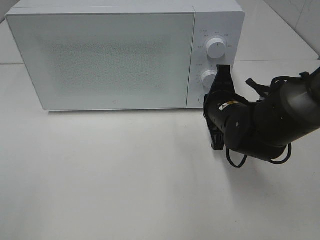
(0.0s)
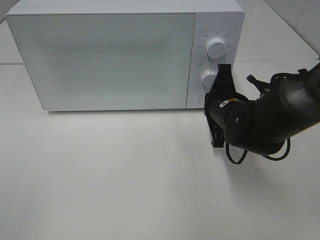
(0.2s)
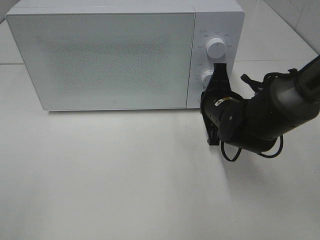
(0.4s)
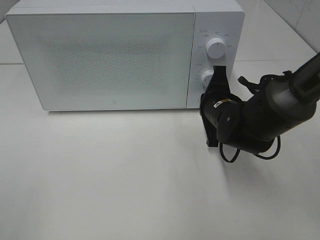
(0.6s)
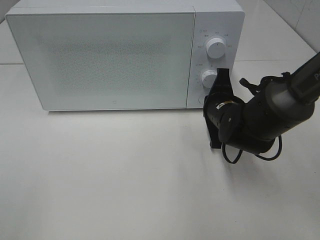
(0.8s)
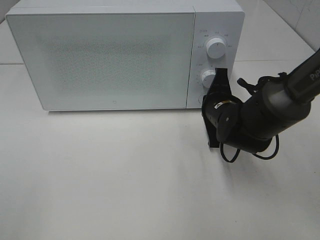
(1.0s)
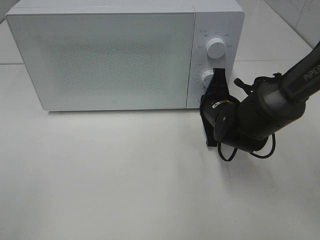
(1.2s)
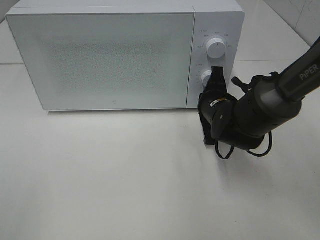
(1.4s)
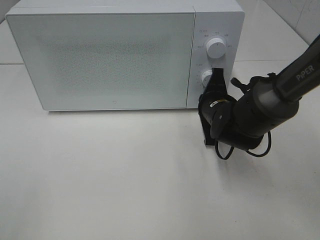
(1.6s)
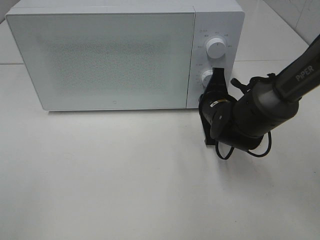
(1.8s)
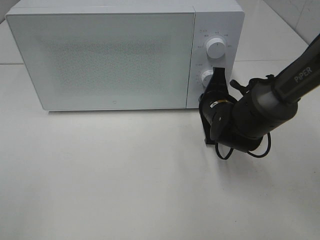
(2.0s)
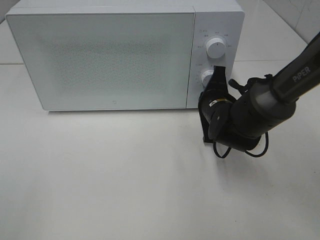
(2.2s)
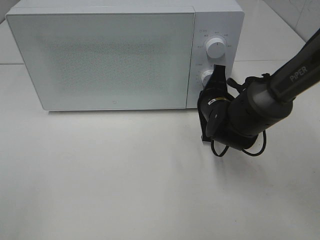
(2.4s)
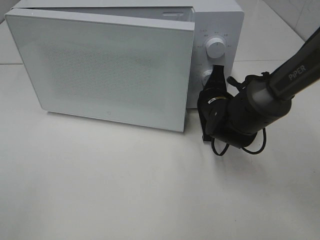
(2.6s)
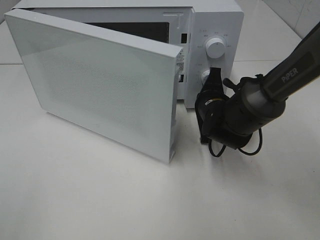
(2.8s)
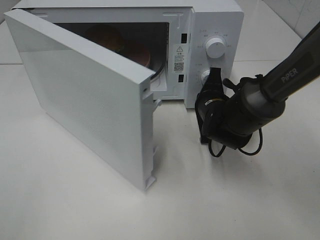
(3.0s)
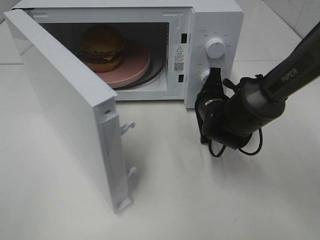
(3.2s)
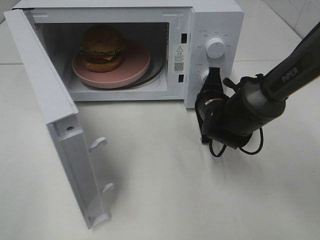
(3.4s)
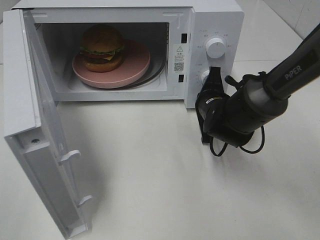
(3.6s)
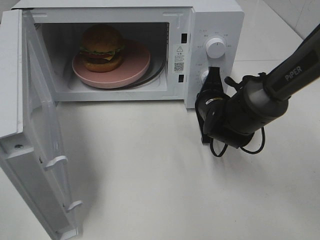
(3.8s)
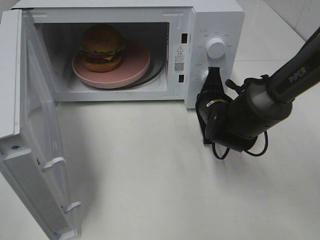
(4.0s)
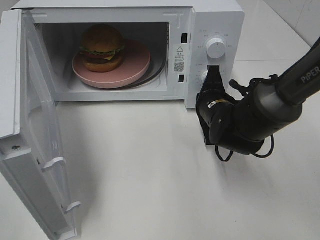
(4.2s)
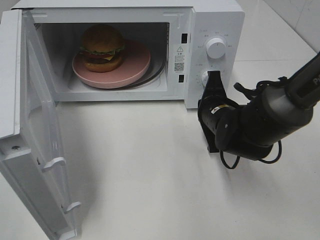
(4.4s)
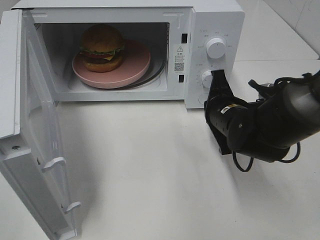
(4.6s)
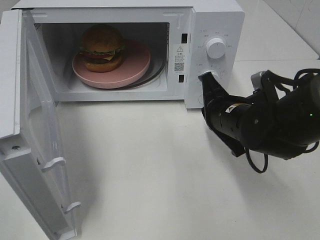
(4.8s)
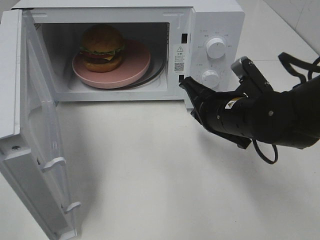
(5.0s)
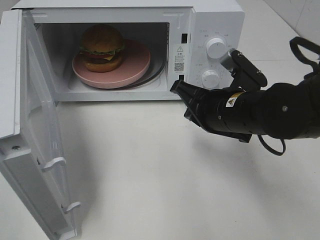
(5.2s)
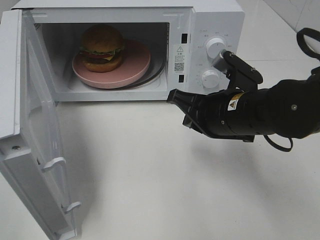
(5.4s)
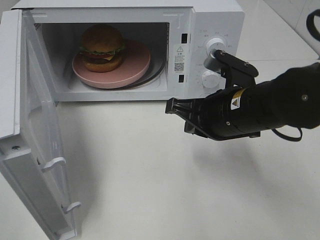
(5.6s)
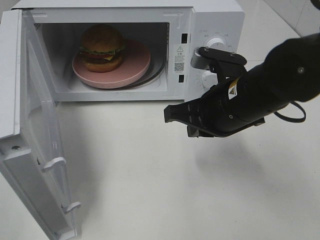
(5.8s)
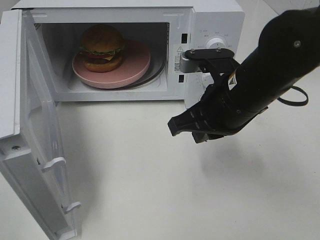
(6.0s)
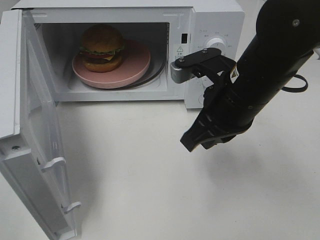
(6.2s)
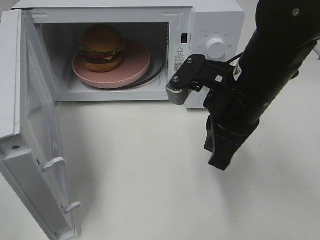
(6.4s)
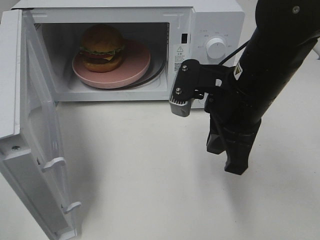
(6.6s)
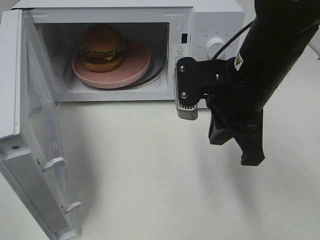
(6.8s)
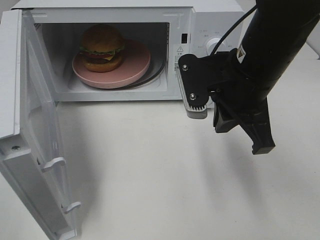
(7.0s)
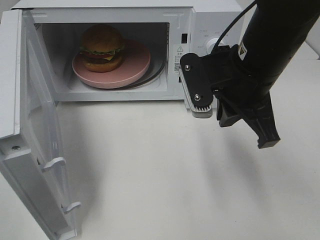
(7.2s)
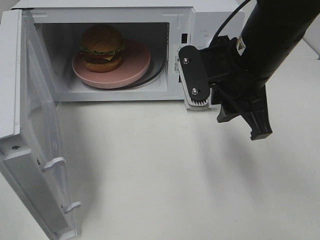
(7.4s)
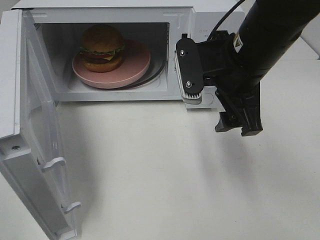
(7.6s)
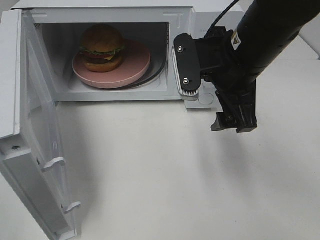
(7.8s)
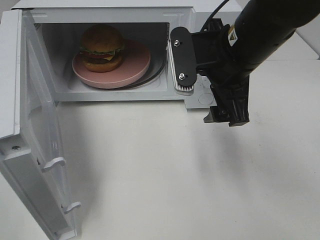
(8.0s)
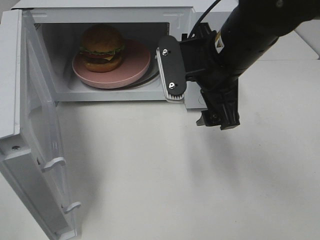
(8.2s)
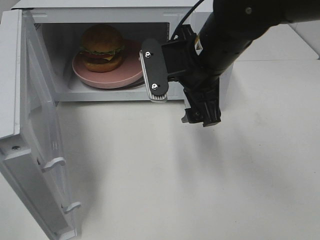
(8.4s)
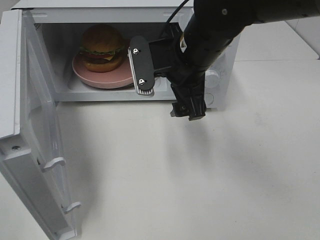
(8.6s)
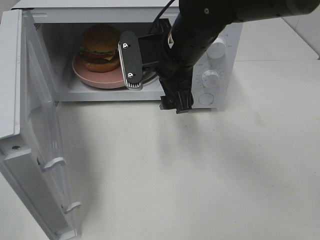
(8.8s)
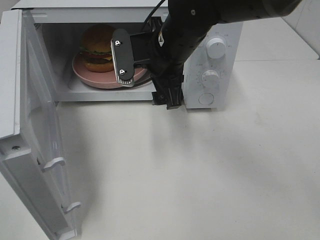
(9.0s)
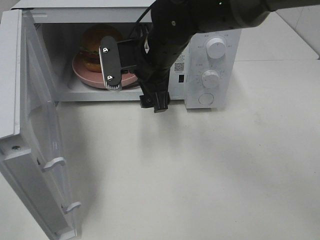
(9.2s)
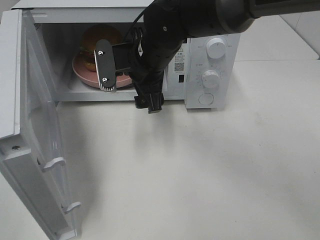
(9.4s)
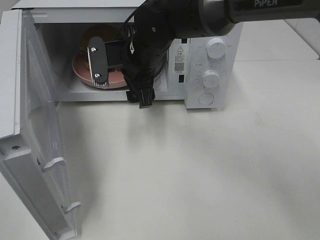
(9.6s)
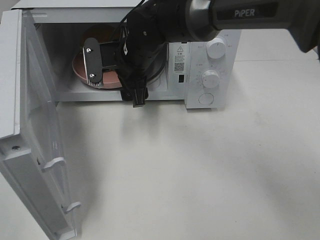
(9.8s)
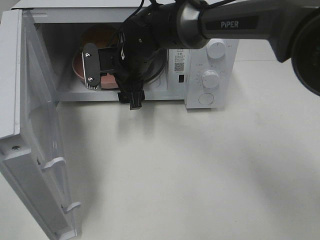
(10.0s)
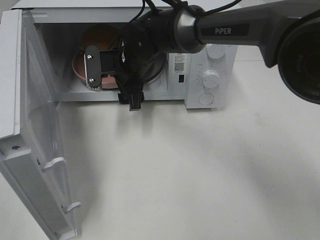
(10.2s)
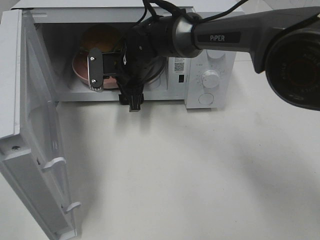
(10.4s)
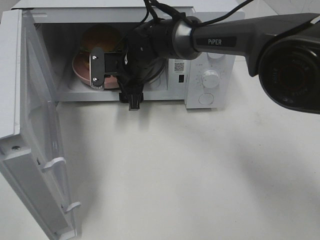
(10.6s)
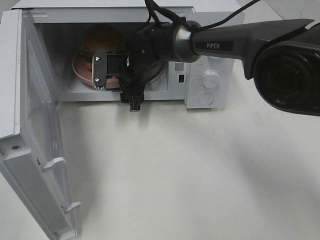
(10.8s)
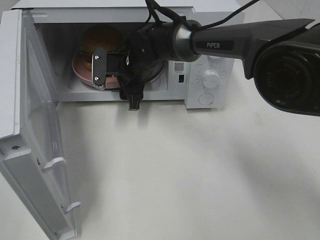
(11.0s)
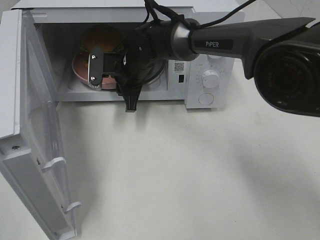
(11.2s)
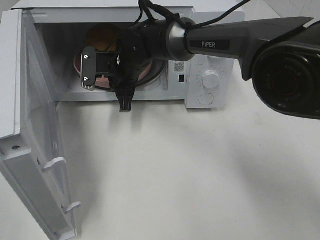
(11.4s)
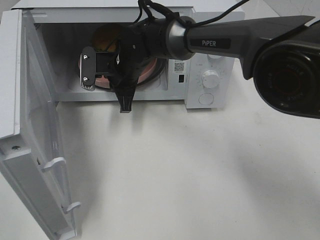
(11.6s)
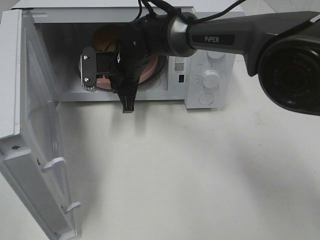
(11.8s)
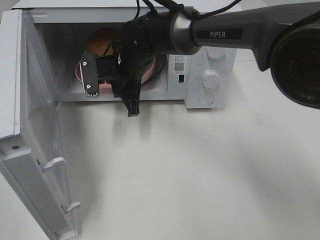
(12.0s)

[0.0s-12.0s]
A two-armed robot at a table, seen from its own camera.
Task of the whole recording: Heat the burger.
Step, 0.0s to 4.2s: Right hand: press the switch.
Step, 4.4s to 11.4s: Right hand: grab the plate with the hamburger.
0.0s to 1.6s: The grippers make only small movements.
4.4s to 6.0s: The right gripper goes approximately 15 cm upward and backward.
6.0s to 7.6s: The right gripper opens.
7.6s to 9.0s: The right gripper is displaced to the left and forward by about 10 cm.
9.0s to 10.4s: The right gripper goes about 15 cm forward, downward and to the left.
10.4s to 12.0s: The right gripper closes up.

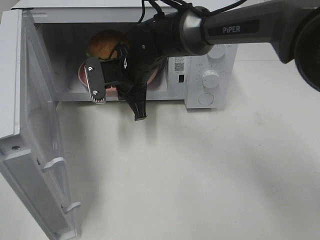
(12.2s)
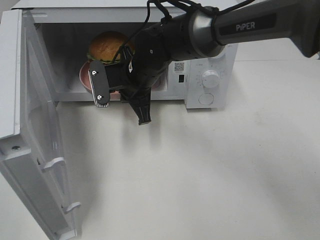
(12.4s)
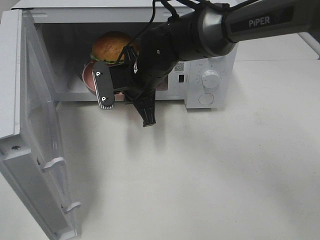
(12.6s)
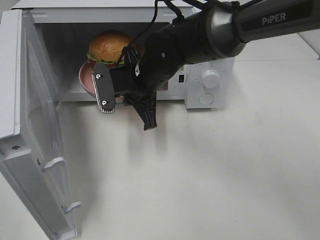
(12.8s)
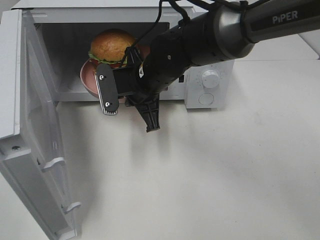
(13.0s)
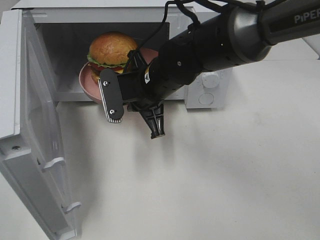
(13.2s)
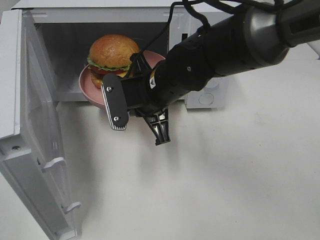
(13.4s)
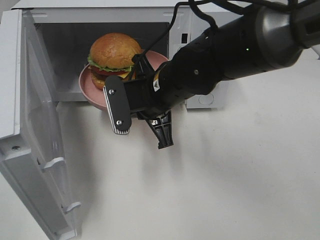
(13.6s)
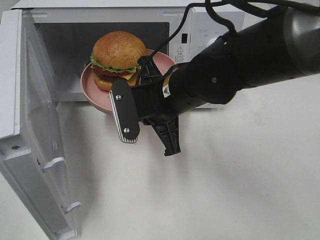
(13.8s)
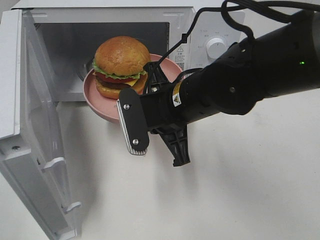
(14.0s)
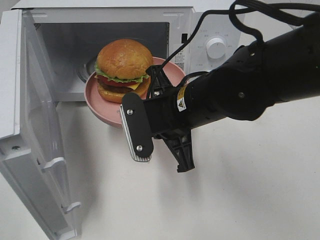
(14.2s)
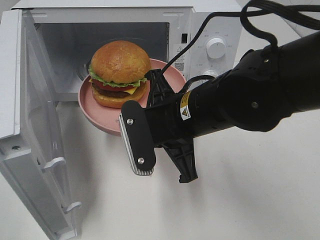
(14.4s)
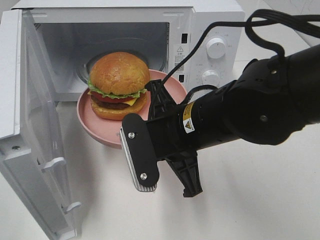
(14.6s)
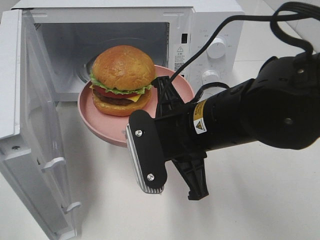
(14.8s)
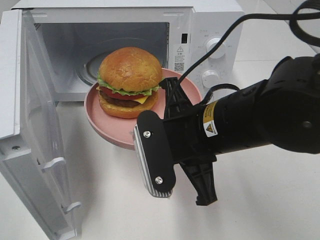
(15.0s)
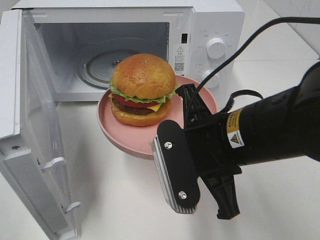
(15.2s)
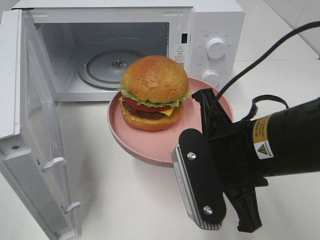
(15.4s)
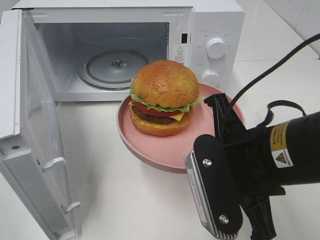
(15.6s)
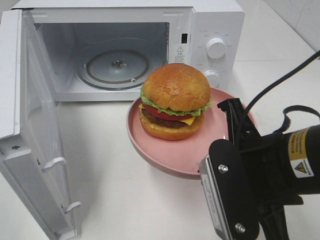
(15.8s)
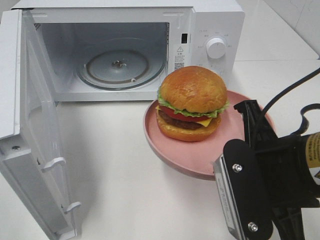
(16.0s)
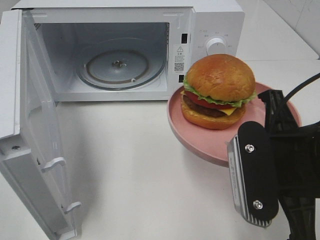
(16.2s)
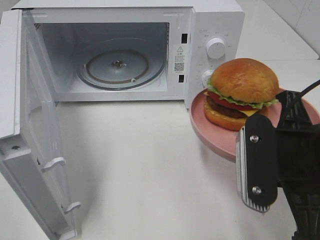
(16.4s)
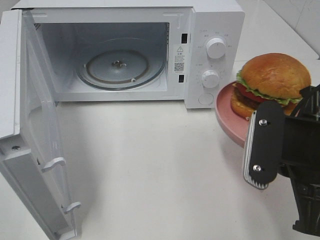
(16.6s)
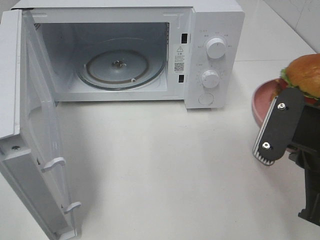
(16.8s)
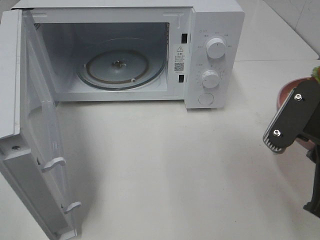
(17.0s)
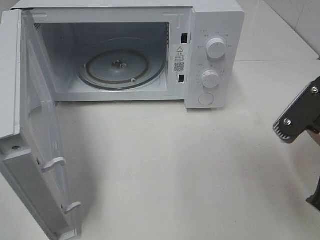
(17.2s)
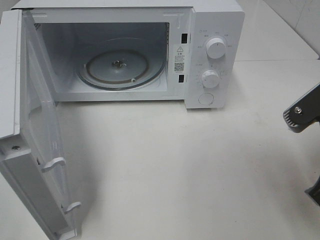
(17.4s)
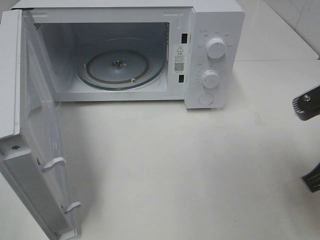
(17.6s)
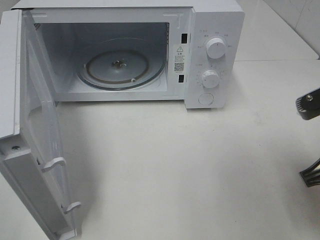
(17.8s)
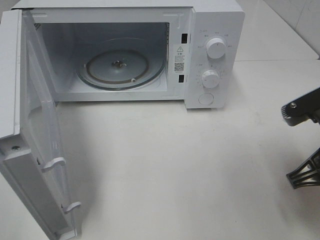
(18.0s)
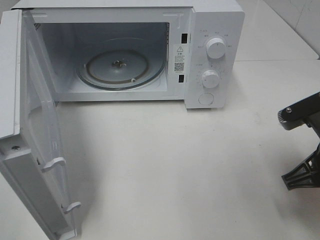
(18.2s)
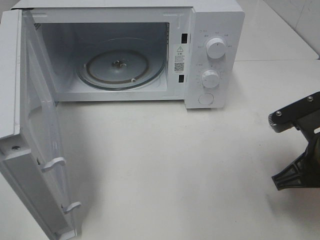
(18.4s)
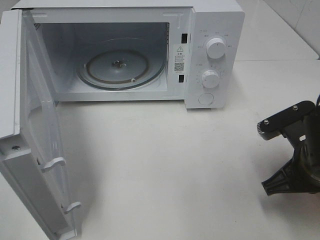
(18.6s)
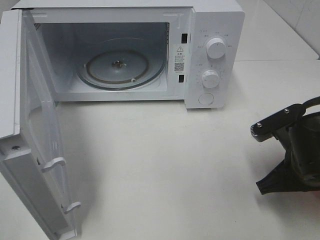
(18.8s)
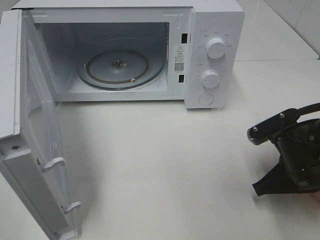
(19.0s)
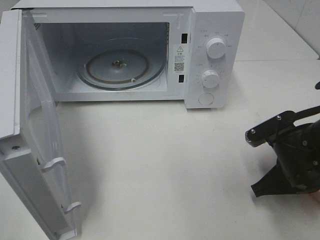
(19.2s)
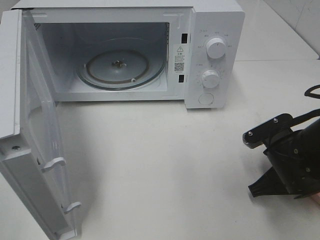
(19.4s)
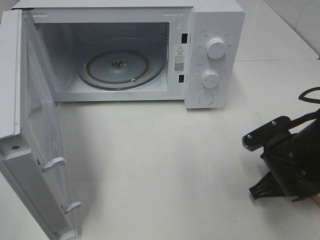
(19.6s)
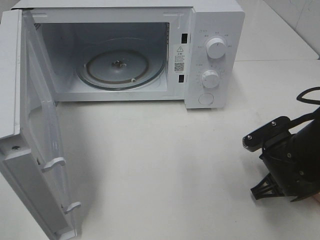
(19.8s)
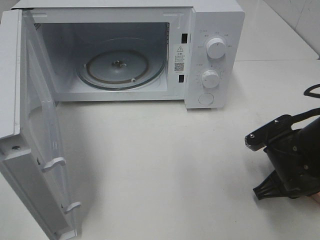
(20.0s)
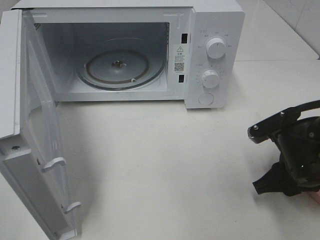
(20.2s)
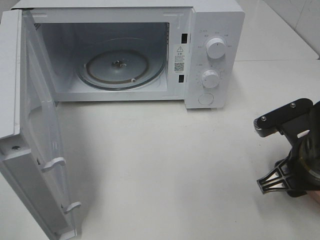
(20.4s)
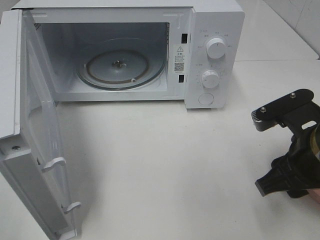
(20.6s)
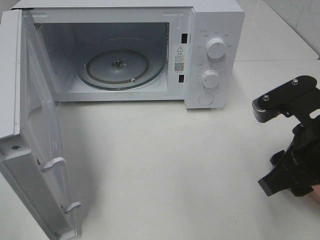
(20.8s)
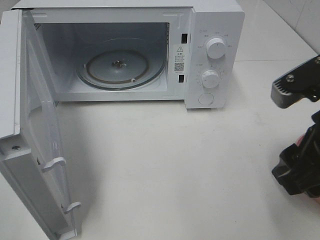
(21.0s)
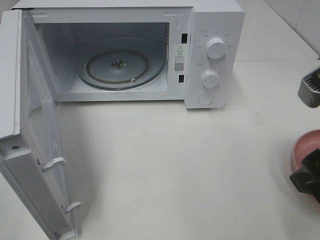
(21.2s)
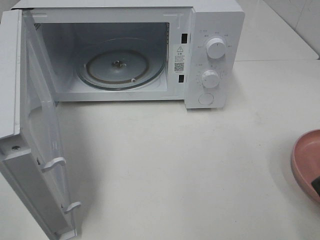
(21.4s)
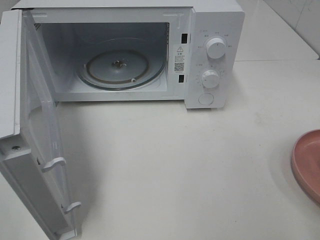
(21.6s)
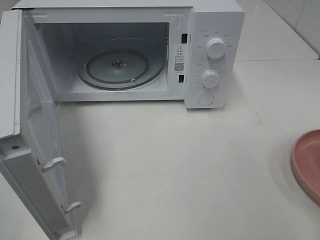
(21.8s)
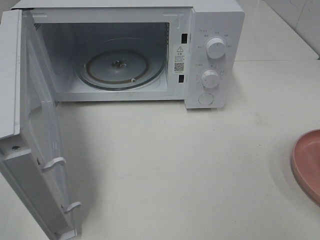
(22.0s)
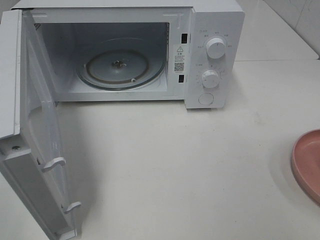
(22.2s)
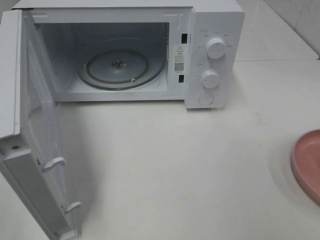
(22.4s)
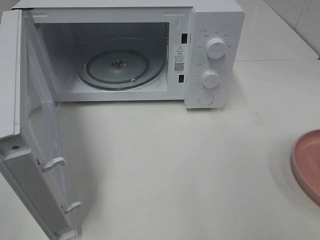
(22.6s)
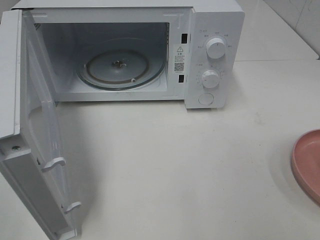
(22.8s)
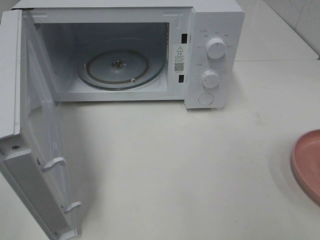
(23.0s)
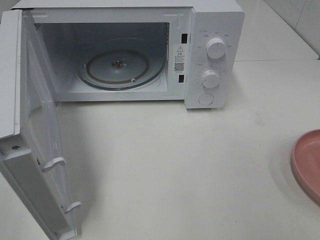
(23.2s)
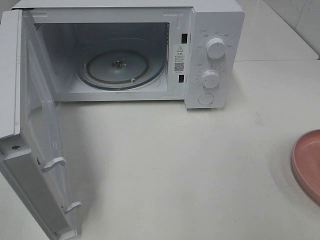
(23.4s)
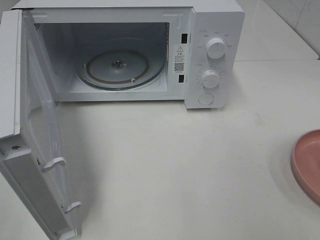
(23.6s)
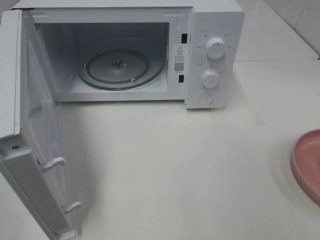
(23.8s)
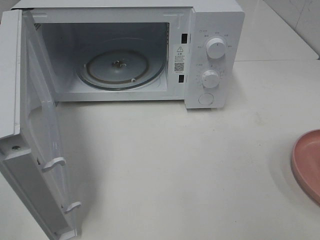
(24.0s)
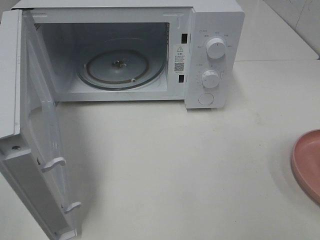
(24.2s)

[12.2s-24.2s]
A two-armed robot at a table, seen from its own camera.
Task of the whole recording: Heat the burger.
Step, 12.2s to 20.0s: Right hand: place the plate on the table.
12.2s to 13.8s: The right gripper shifts approximately 15 cm backward and to the right.
13.8s to 15.2s: The right gripper is displaced backward and to the right by some 10 cm.
15.2s to 16.6s: The right gripper shifts about 10 cm to the right.
16.6s to 18.2s: The right gripper ends up roughly 5 cm from where it was.
18.2s to 19.8s: The right gripper is displaced downward by roughly 10 cm.
19.8s to 21.2s: The right gripper is displaced upward by roughly 20 cm, and opens its fingers.
21.2s to 22.6s: The right gripper heads backward and to the right, covering approximately 15 cm.
